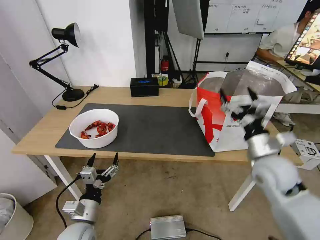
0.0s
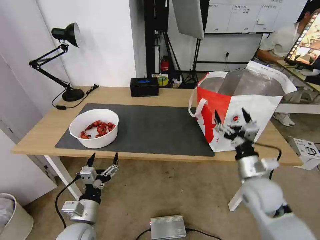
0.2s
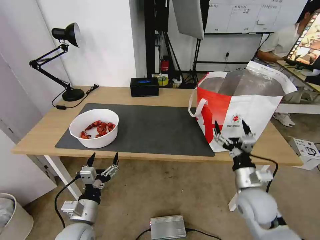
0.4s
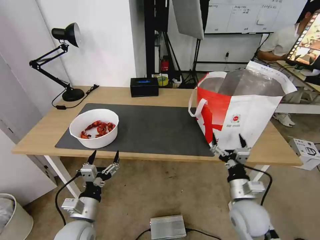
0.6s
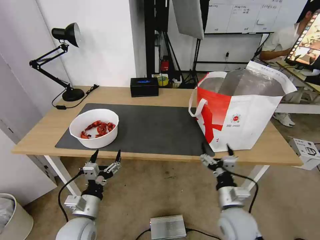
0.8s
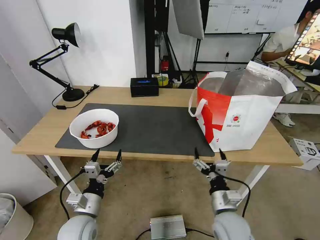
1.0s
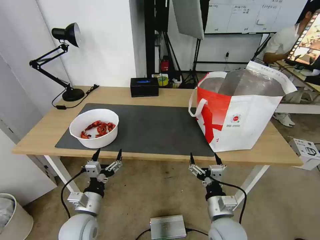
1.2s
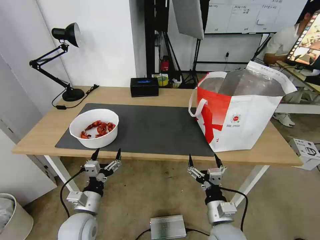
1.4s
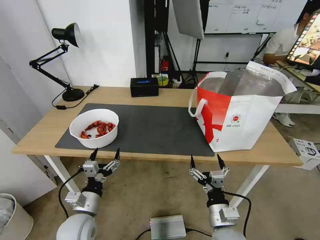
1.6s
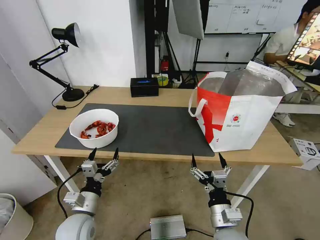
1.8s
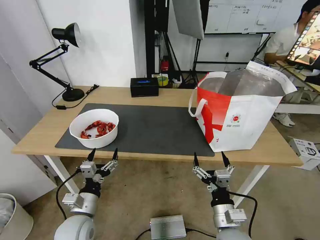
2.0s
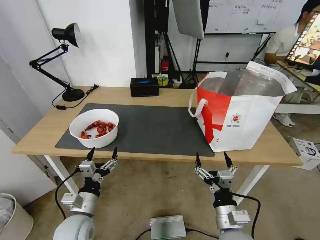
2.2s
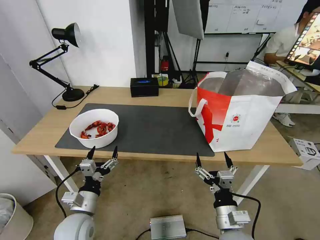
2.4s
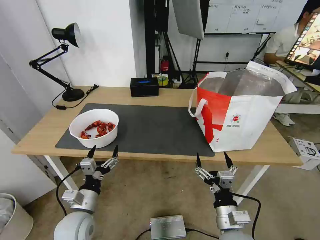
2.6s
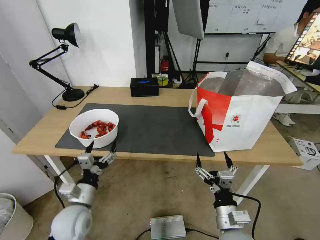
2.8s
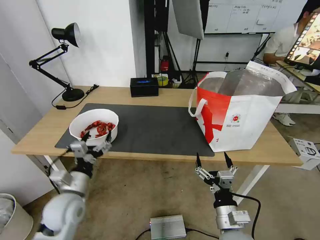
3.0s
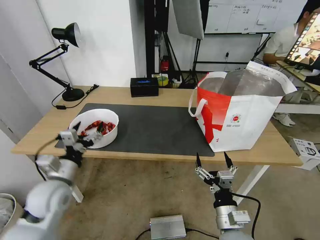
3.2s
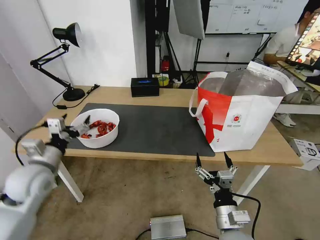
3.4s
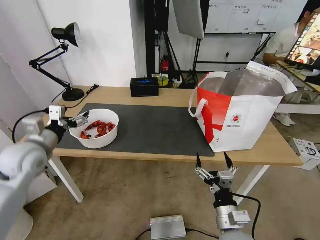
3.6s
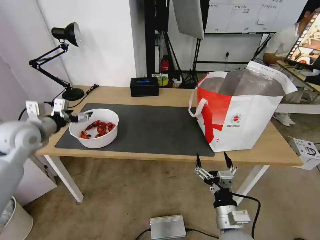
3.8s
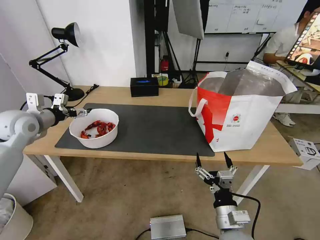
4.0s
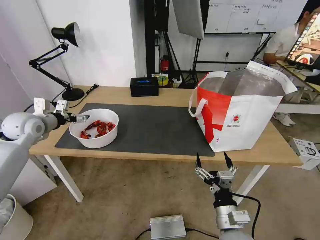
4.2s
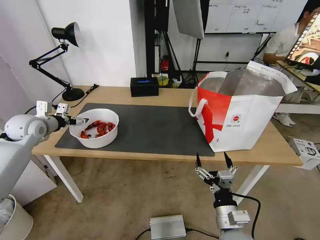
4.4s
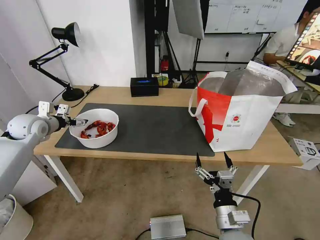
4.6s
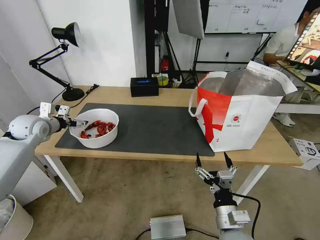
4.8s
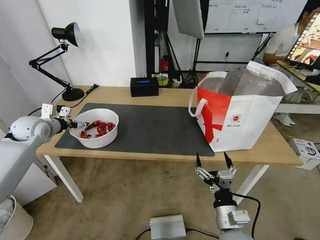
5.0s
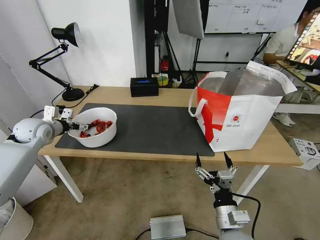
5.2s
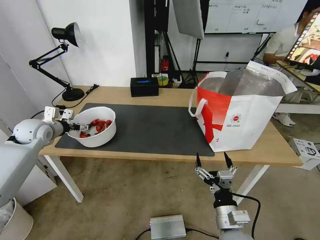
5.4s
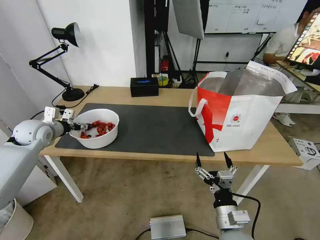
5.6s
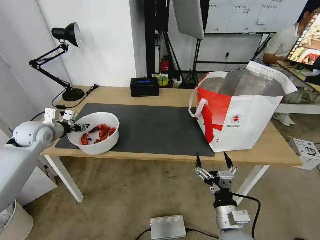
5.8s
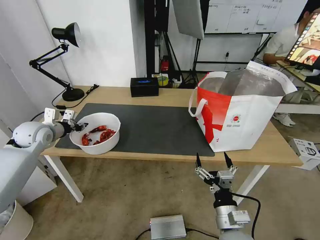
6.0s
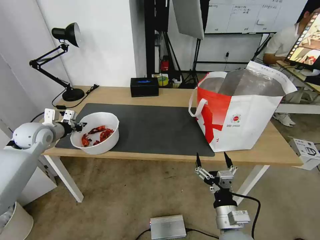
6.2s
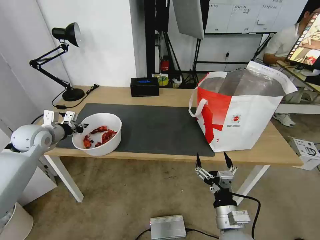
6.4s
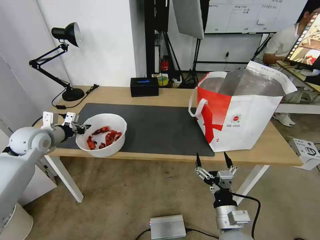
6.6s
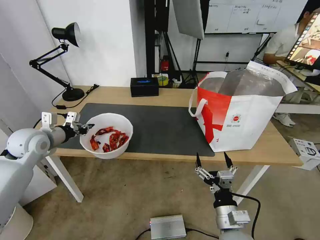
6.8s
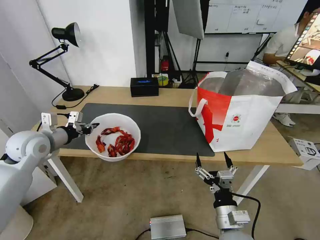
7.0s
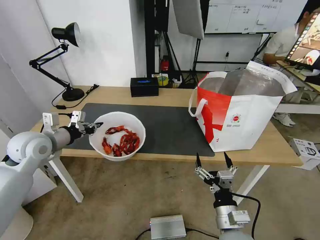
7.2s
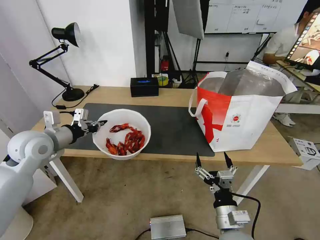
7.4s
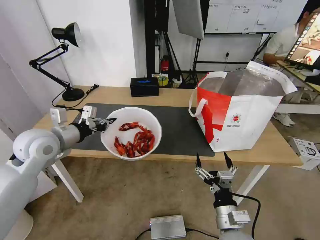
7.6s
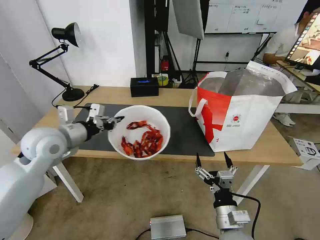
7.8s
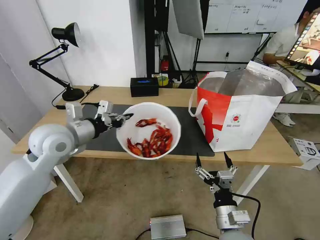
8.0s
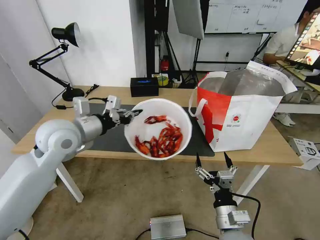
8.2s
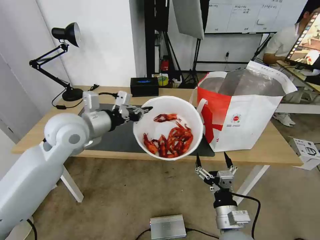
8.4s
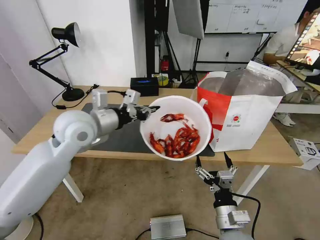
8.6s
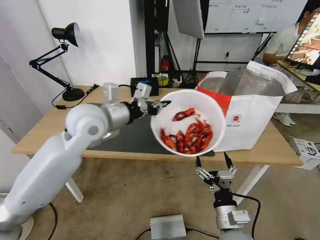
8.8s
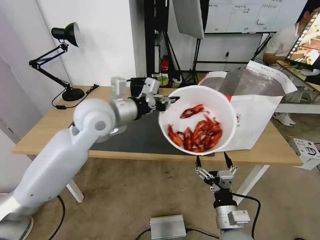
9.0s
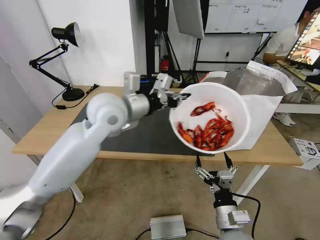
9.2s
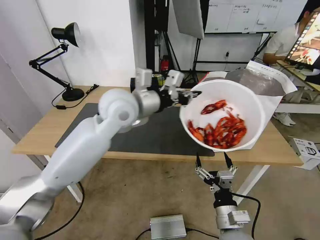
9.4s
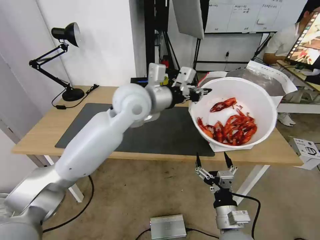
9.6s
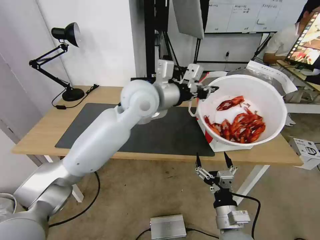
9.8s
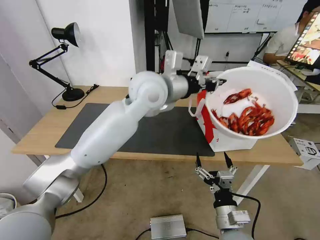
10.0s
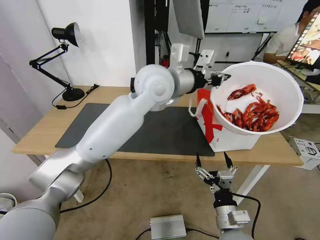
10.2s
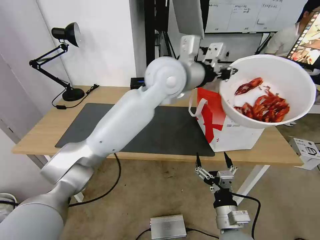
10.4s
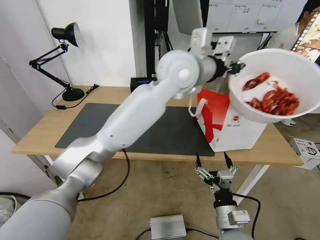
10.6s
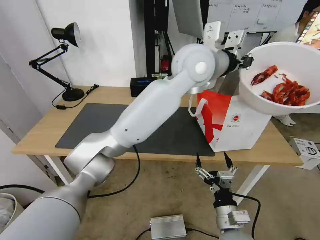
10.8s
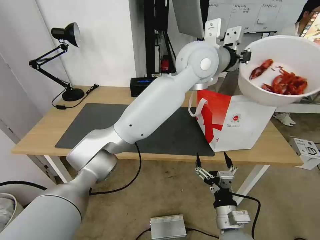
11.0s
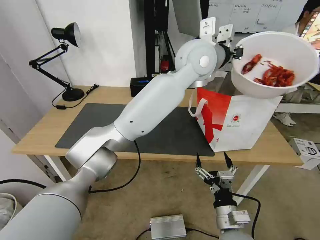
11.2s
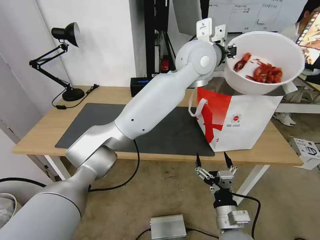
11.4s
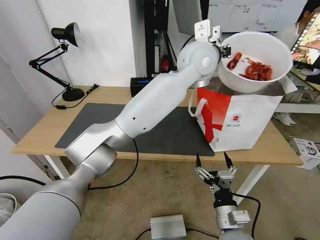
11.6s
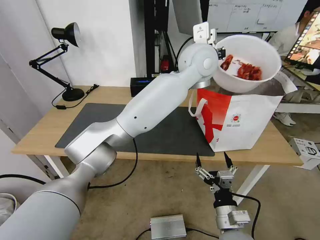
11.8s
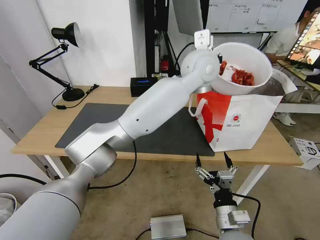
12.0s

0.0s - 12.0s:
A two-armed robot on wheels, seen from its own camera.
Task of the whole recording: Pick up the trash from the table and place it into the takeout bag.
0.0s - 1.6s: The right gripper goes roughly 25 cm downward, backward and to the left.
1.6s - 3.0s: The left gripper shifts about 5 cm upward.
3.0s - 4.4s: The left gripper travels forward, to the left and upward by roughly 30 cm.
4.4s - 6.0s: The left gripper closes its fingers.
6.0s - 7.6s: The left gripper shifts some 15 cm to the right, backward and upward.
7.6s - 9.0s: The left gripper goes some 20 cm to the right and upward.
9.0s - 10.4s: The left gripper shifts about 20 cm to the right and upward.
10.4s - 12.0s: The left gripper goes some 10 cm to the right and forward.

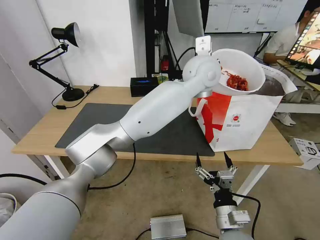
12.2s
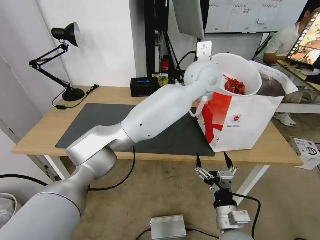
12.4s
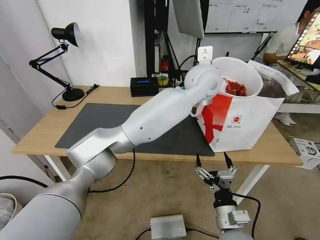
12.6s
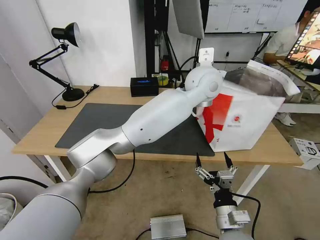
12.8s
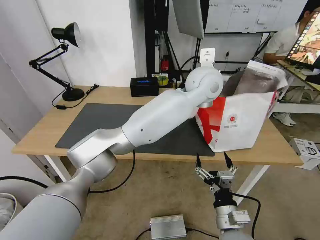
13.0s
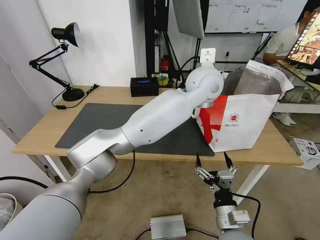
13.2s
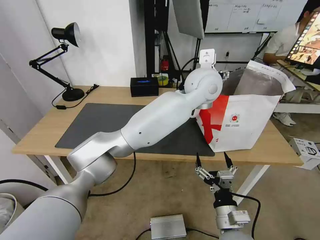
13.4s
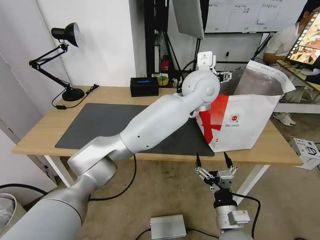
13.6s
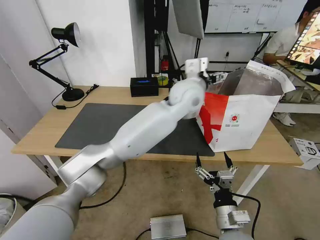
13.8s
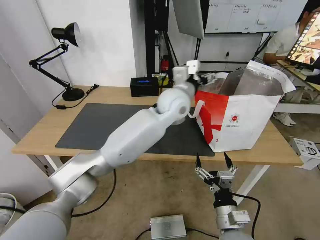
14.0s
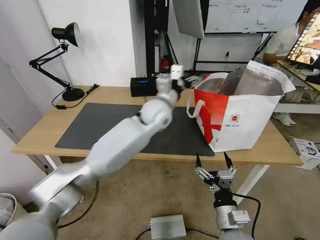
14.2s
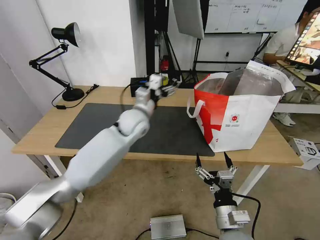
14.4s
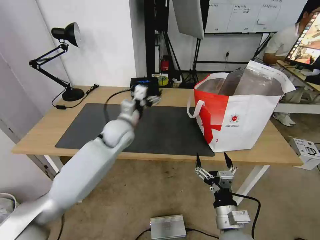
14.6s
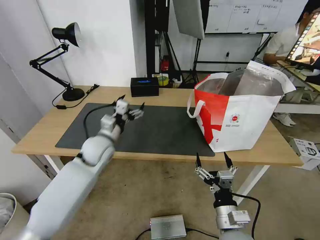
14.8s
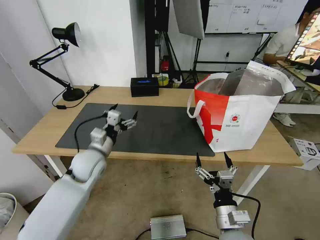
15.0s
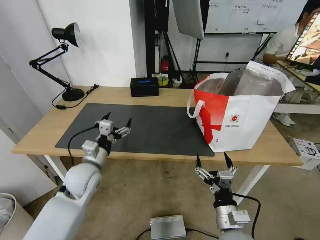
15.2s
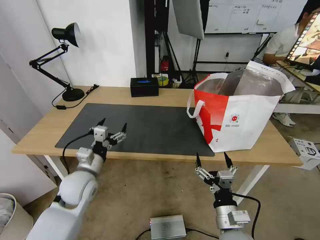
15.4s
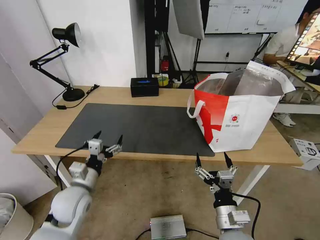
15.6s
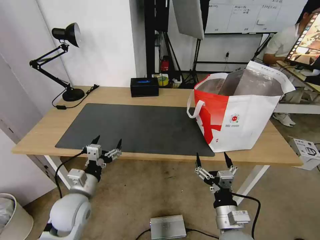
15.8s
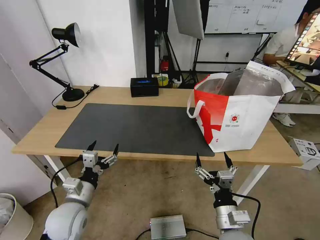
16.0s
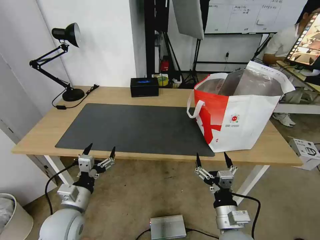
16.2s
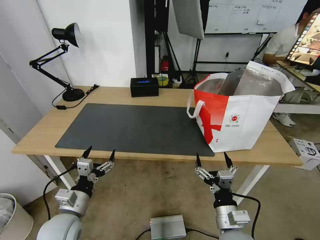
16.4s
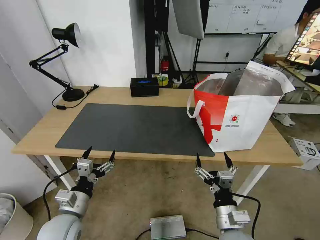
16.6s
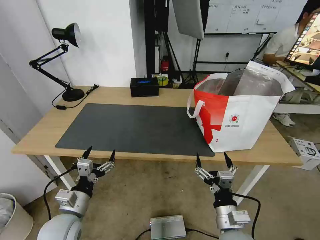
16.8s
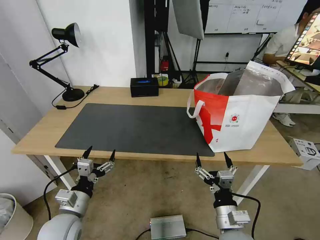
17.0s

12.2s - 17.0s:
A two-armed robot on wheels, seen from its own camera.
Task of the whole recording: Pick up the trash from the table and place it into the takeout bag.
12.2s - 13.8s: The left gripper travels downward by approximately 5 cm, and opens its fingers.
13.8s - 15.4s: The left gripper is displaced to the left, downward and backward by some 40 cm.
15.4s - 17.0s: The left gripper heads backward, covering some 10 cm.
